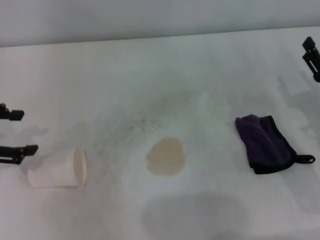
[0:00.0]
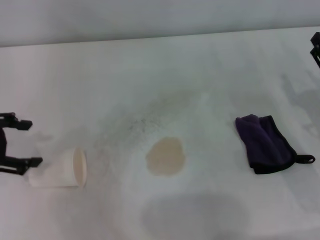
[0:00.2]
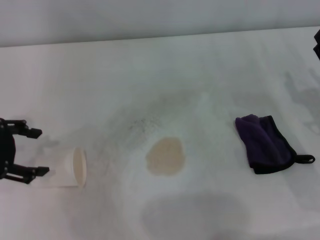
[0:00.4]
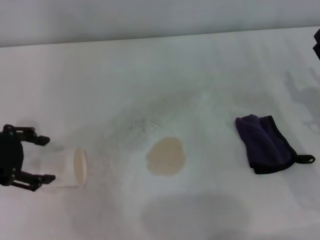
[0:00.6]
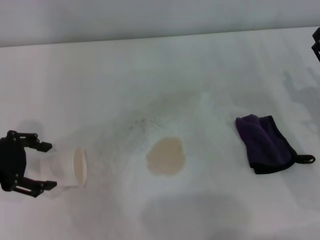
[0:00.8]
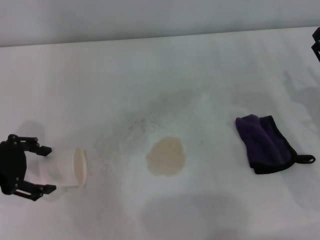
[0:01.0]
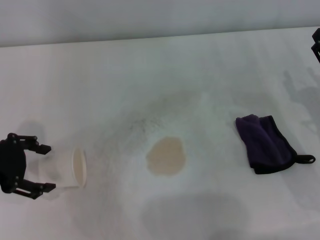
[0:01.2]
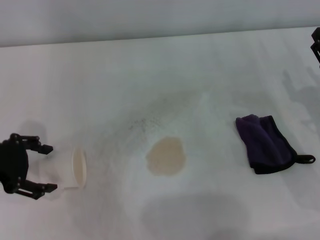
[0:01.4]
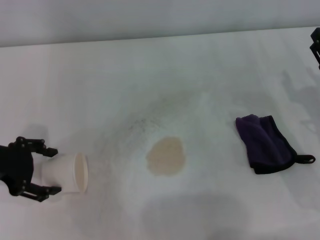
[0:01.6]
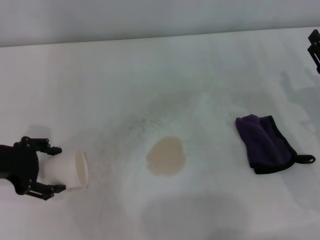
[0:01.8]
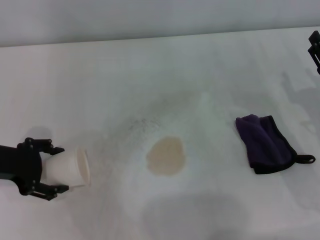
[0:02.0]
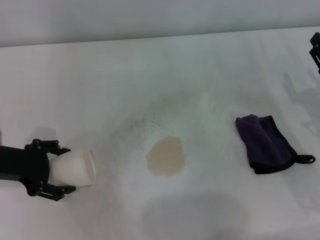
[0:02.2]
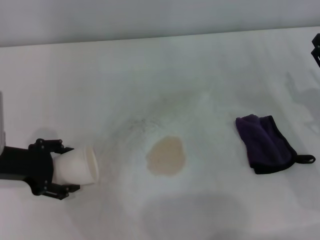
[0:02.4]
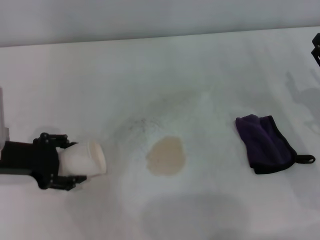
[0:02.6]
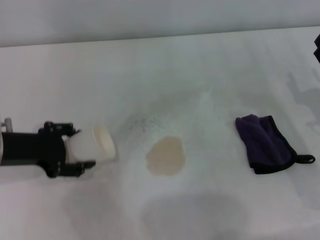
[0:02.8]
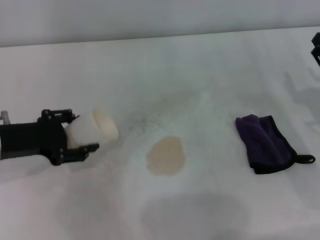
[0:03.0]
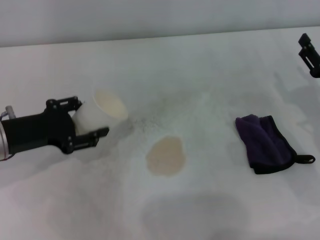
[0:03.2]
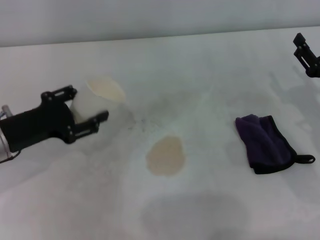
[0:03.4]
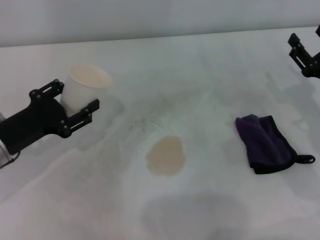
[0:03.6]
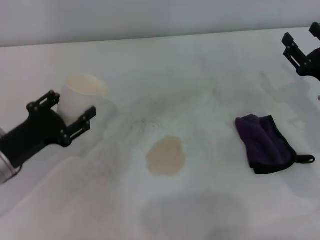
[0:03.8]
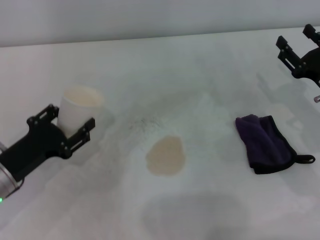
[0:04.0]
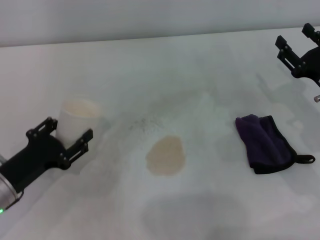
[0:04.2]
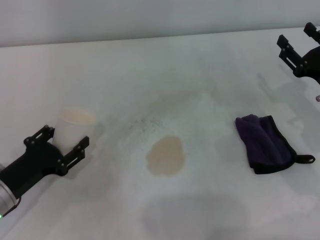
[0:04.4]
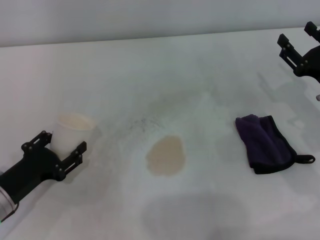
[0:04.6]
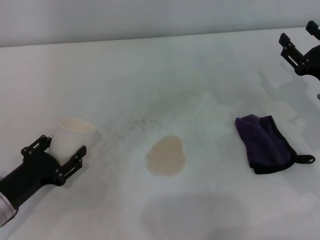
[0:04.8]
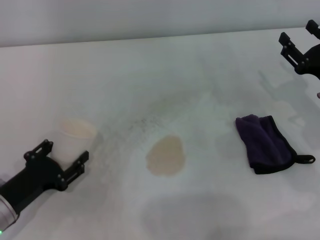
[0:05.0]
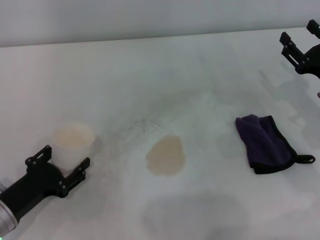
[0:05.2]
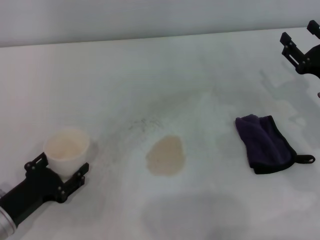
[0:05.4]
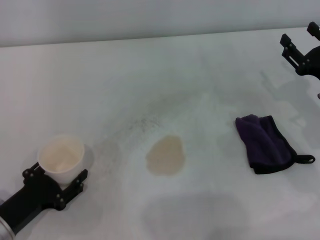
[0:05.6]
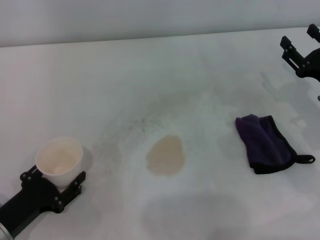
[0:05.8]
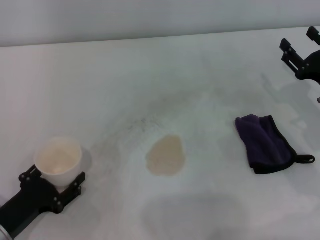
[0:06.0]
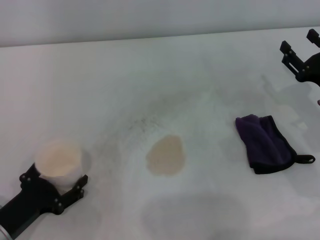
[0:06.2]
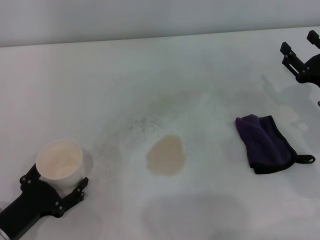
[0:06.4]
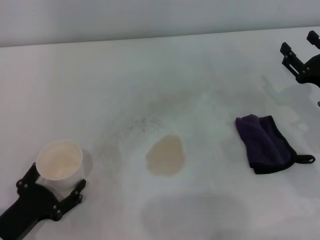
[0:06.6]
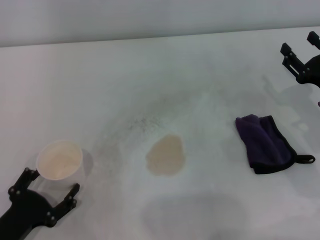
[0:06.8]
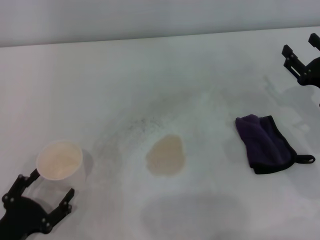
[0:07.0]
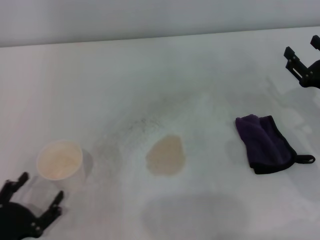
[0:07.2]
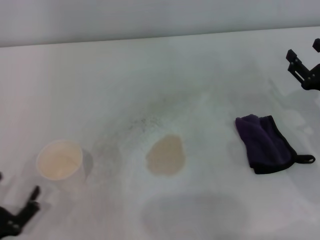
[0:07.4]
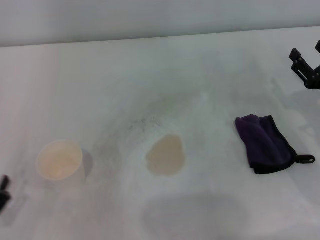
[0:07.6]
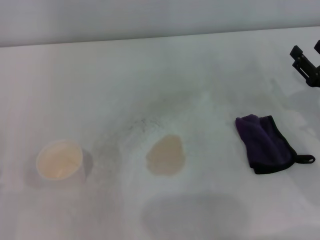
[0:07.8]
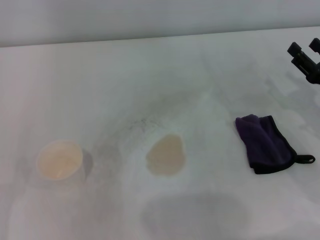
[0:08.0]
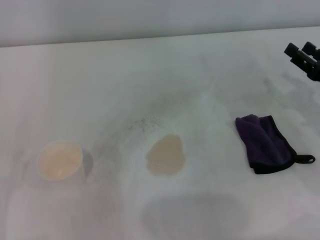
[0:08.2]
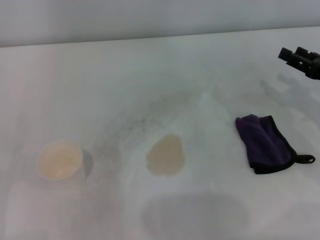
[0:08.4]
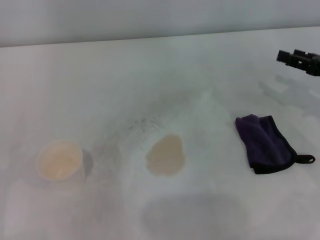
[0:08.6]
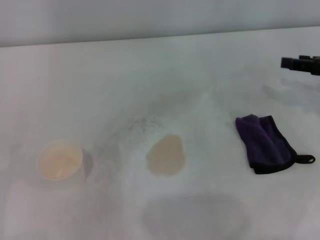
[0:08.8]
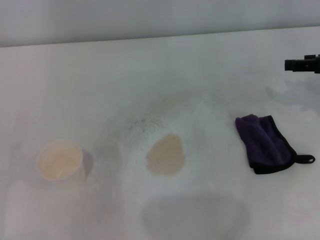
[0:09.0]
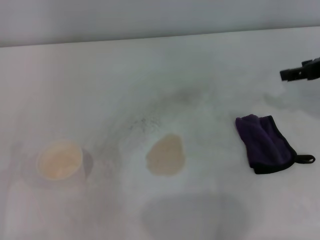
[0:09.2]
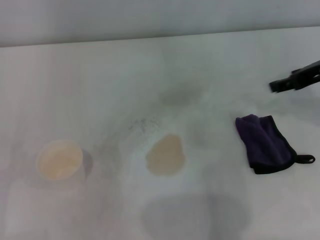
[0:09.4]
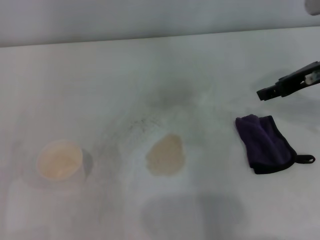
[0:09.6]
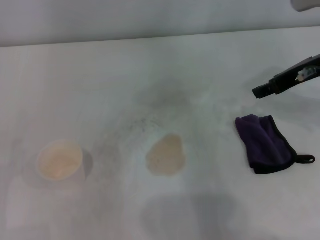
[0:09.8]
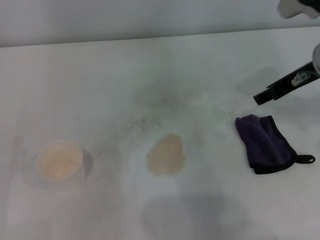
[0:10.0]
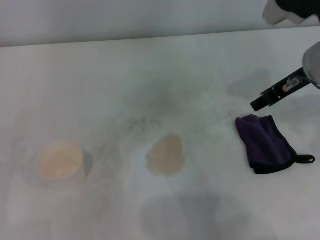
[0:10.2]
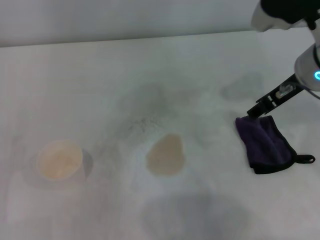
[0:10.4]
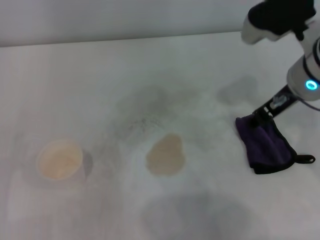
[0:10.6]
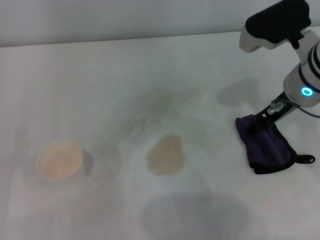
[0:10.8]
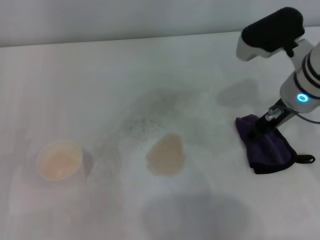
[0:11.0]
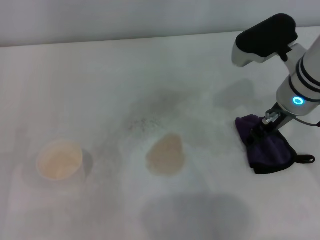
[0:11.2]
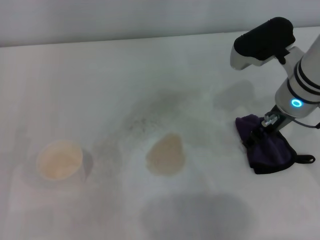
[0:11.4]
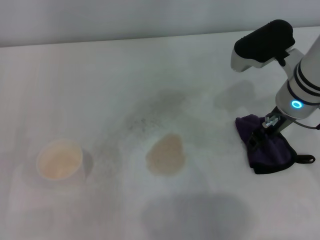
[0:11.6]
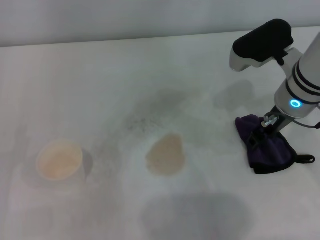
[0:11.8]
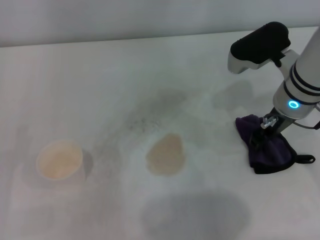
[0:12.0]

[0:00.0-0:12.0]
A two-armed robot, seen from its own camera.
Step, 0.0 to 2.4 s: Grasp the paper cup with the left gripper.
Step, 2.6 to 6.0 s: Stand the paper cup upright with the left gripper.
0.0 to 1.6 s: The left gripper moves some 5 cm.
1.6 to 3.0 s: The left gripper closes up.
3.0 to 4.4 s: The left gripper moves downward and backward, about 10 cm.
4.4 to 6.0 s: The left gripper moves backward, roughly 5 cm.
6.0 to 7.6 s: The left gripper shifts some 5 cm backward, and opens.
7.6 to 9.0 s: The right gripper moves upward and forward, about 15 cm, while the left gripper moves about 5 cm.
9.0 to 10.4 s: The right gripper shifts some 15 cm to the left.
10.4 to 12.0 s: The right gripper moves downward, about 5 cm, and closes its fingers.

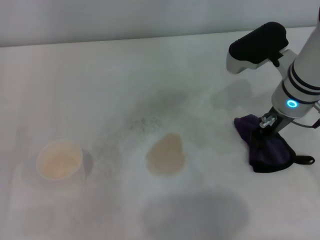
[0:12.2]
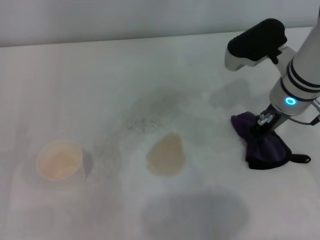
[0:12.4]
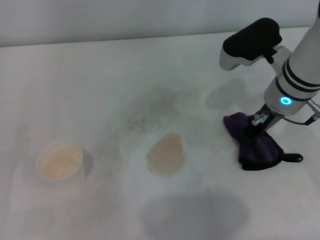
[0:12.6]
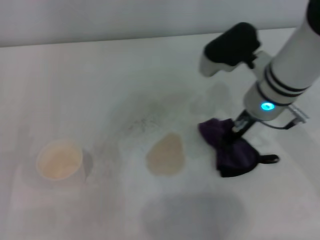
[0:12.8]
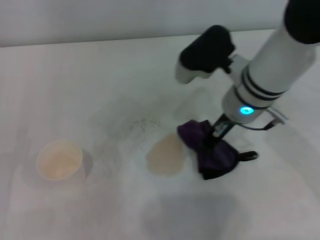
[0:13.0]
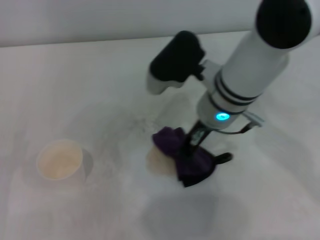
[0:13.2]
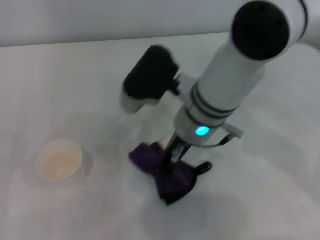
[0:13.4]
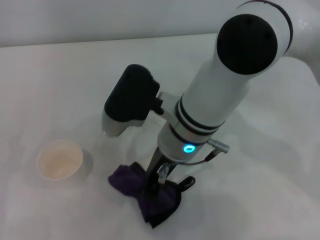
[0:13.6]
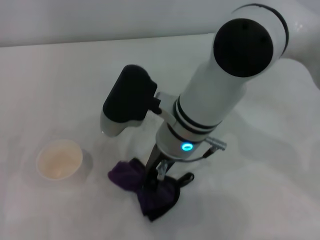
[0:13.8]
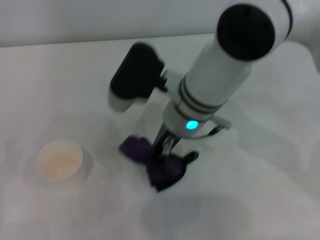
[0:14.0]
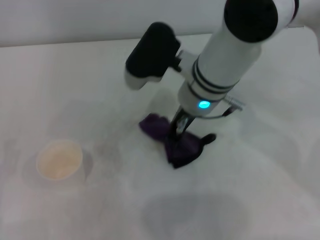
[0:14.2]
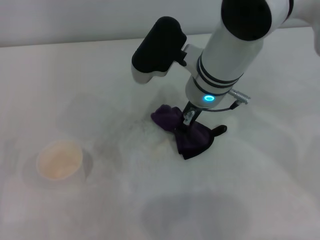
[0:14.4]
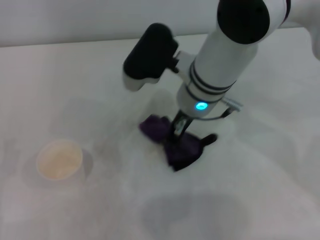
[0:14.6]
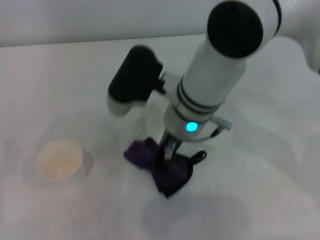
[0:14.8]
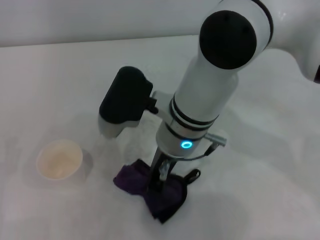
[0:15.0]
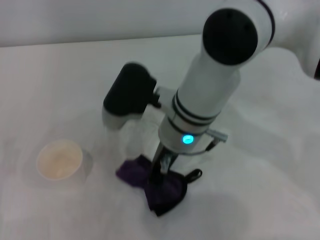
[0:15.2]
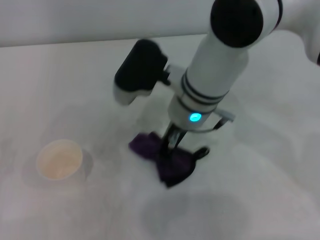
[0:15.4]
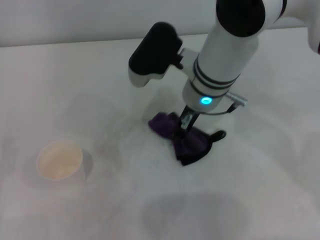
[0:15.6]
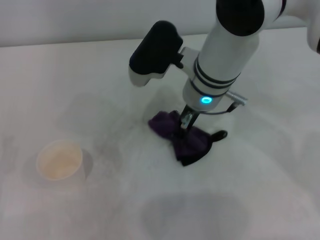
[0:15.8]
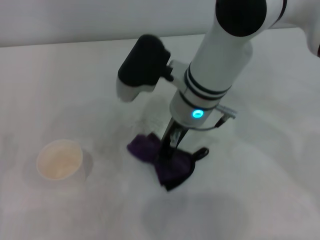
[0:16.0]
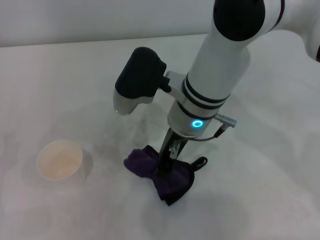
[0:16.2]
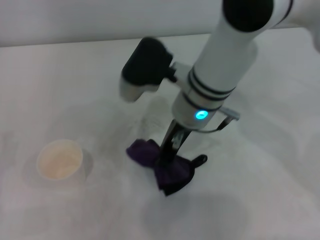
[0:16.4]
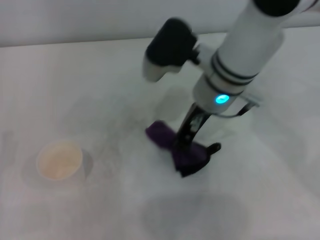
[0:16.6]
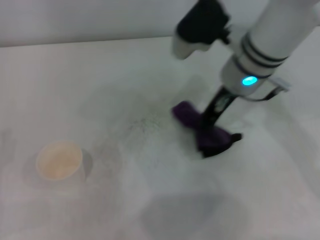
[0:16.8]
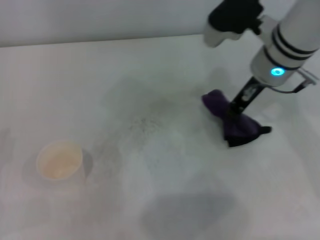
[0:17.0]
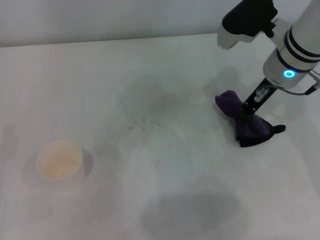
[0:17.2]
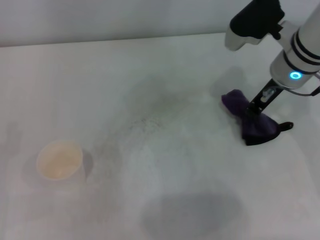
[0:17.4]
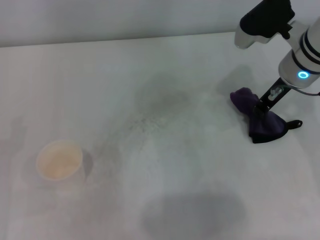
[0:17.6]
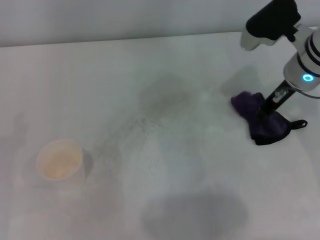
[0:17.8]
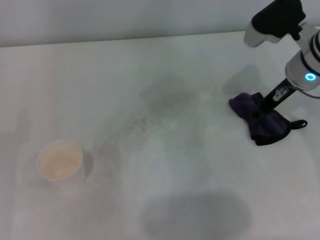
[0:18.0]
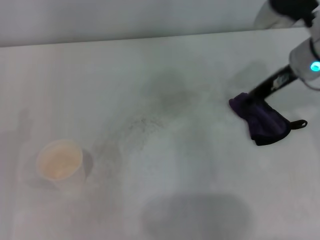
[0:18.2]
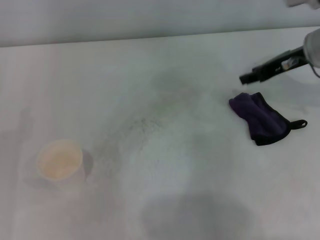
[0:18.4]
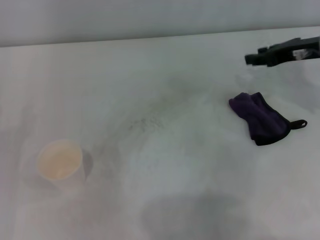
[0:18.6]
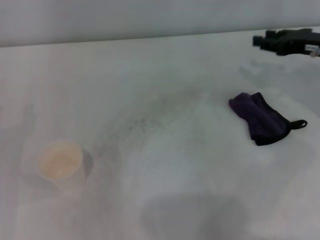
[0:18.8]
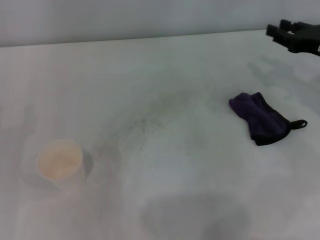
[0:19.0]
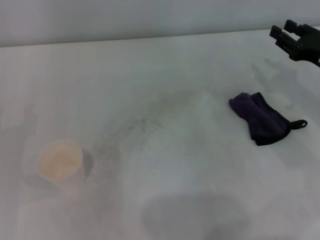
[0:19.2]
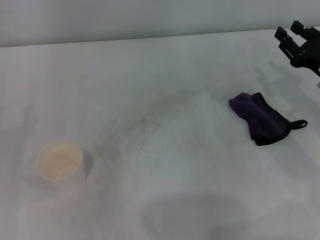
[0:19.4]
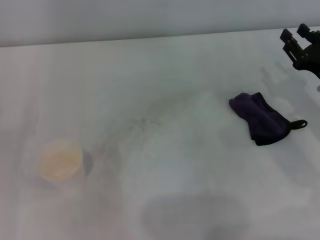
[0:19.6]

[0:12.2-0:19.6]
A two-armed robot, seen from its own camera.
Step, 12.4 to 17.0 s: Wipe the stains off the table with the right gripper.
Step, 17.2 to 17.8 s: Place the rag on the table with the right gripper.
12.2 to 13.6 s: The right gripper travels to the left by approximately 15 cm.
15.2 to 16.6 s: The right gripper is displaced to the right by some 5 cm.
16.6 to 18.2 s: The right gripper travels to the right by approximately 15 cm, and opens.
18.2 to 19.6 s: The right gripper travels downward, backward and to the right by roughly 15 cm.

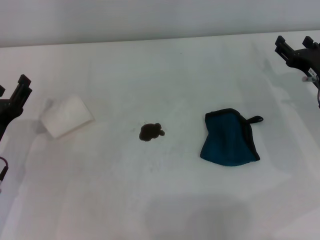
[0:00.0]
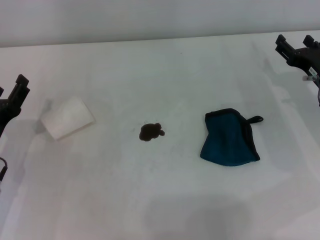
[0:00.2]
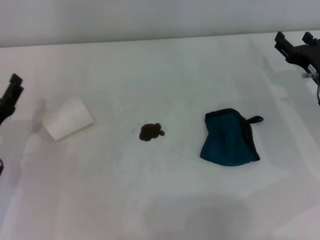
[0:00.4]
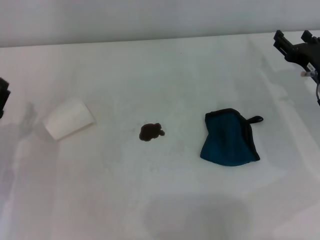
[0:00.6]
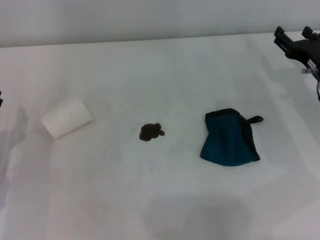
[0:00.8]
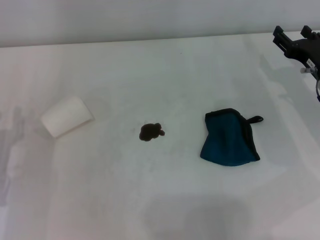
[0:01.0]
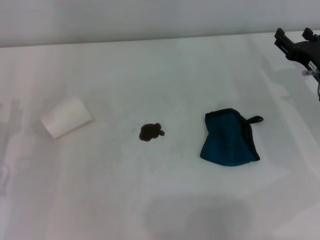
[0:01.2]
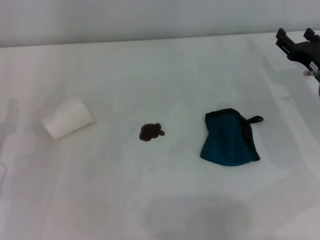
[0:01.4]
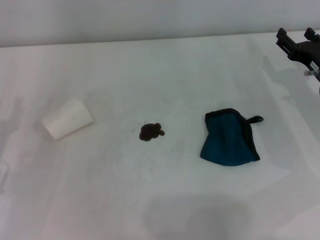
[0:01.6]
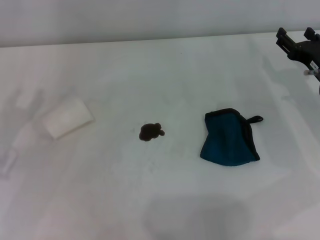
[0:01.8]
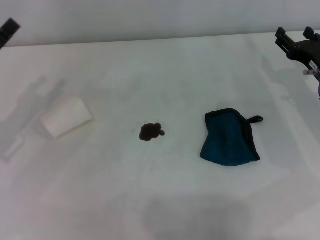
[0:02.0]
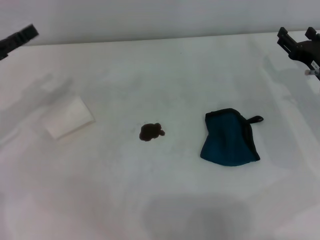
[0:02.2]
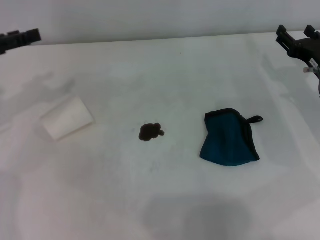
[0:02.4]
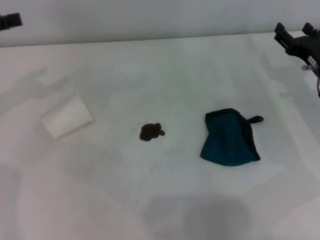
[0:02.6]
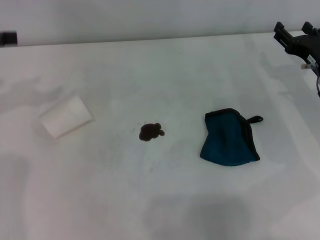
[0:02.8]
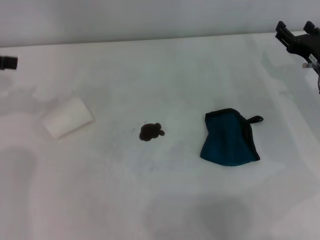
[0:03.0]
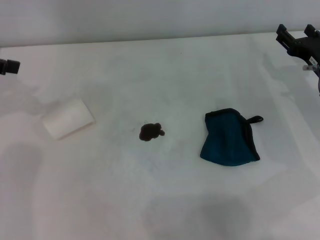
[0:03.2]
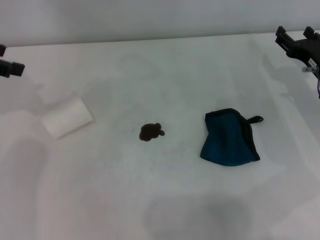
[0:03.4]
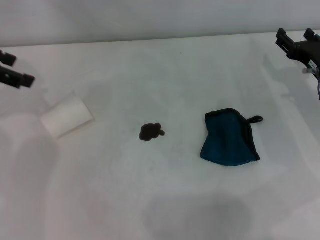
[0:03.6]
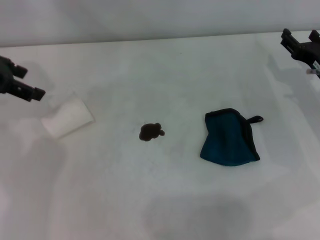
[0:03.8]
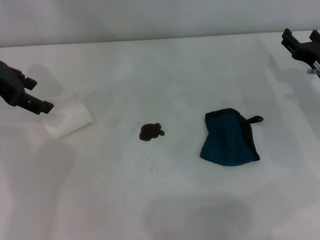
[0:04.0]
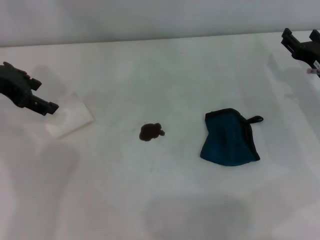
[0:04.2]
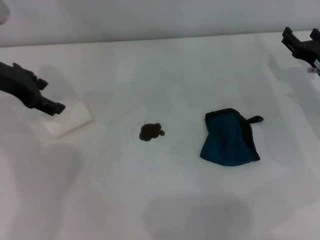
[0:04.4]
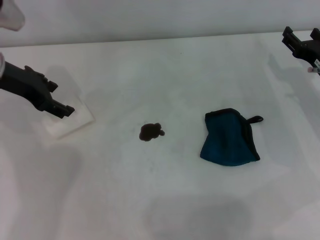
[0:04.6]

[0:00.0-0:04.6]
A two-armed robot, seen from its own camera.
0.0 to 1.6 s: The left gripper closes its fingers.
3.0 to 4.6 s: The left gripper travels to the right and downward by about 10 cm.
